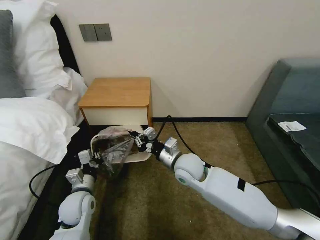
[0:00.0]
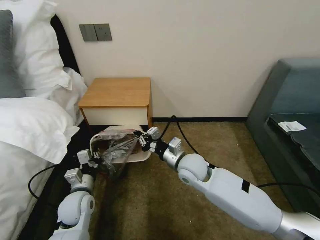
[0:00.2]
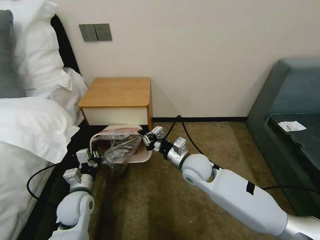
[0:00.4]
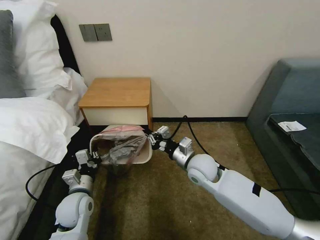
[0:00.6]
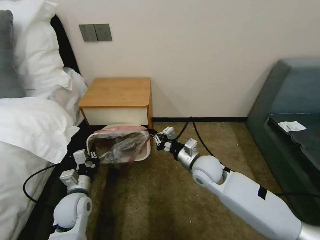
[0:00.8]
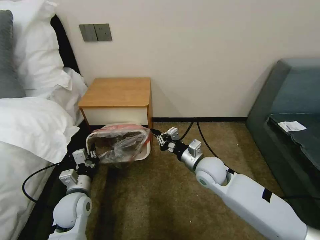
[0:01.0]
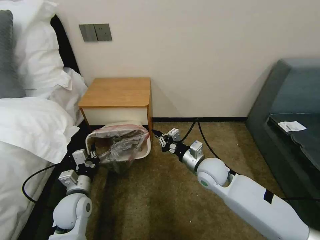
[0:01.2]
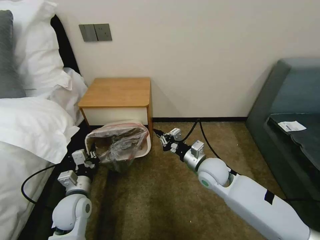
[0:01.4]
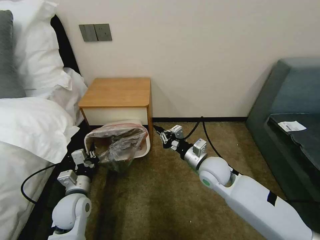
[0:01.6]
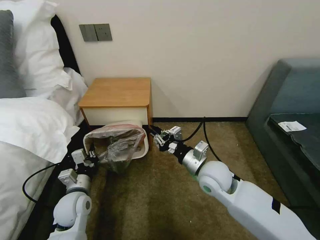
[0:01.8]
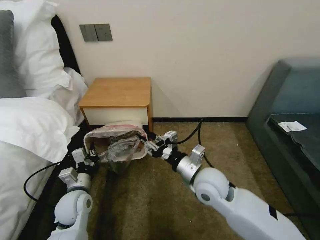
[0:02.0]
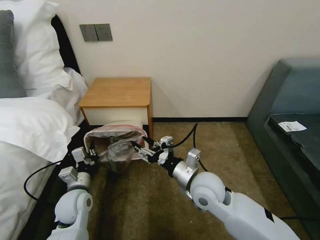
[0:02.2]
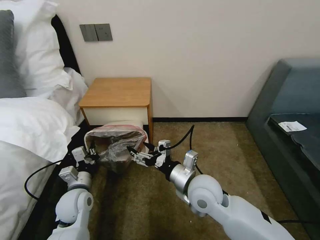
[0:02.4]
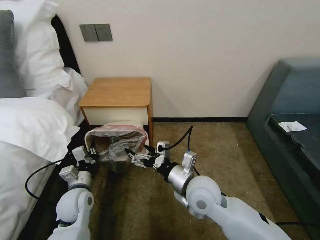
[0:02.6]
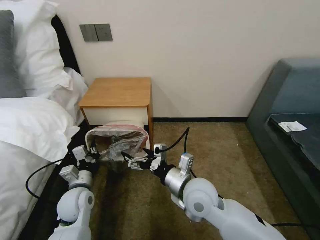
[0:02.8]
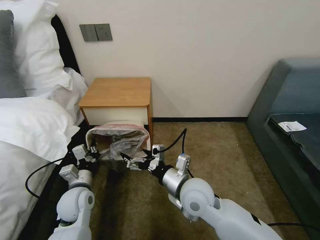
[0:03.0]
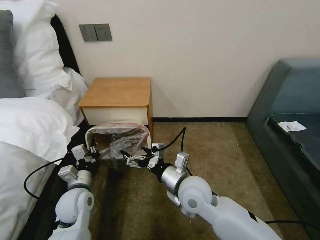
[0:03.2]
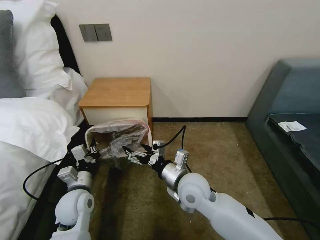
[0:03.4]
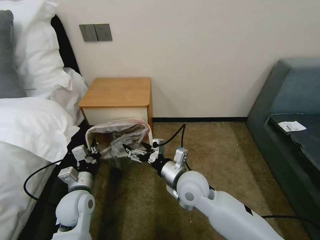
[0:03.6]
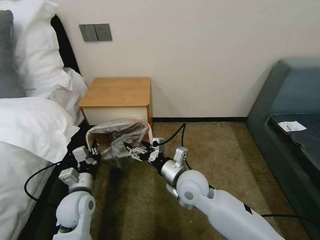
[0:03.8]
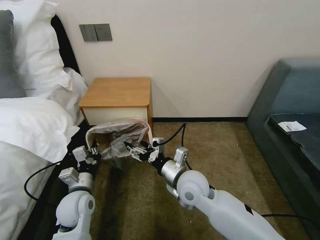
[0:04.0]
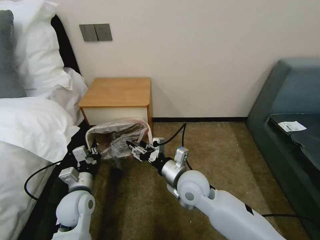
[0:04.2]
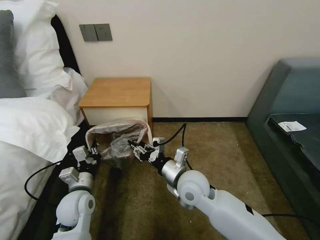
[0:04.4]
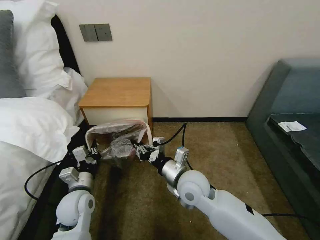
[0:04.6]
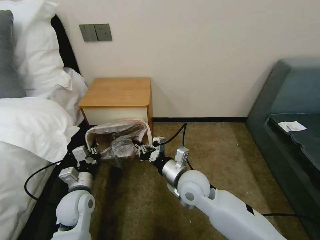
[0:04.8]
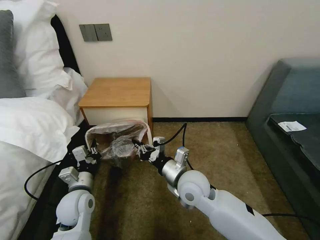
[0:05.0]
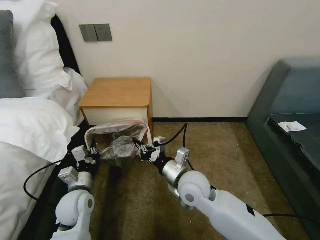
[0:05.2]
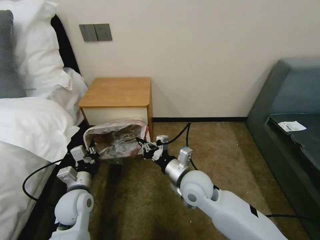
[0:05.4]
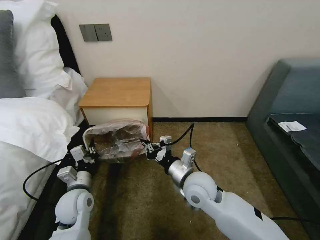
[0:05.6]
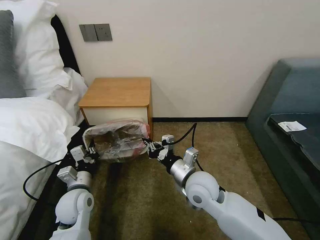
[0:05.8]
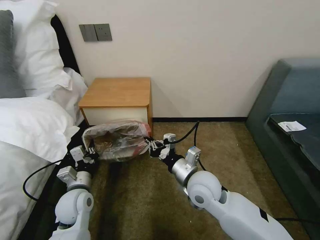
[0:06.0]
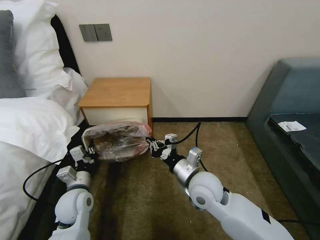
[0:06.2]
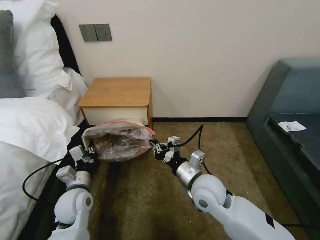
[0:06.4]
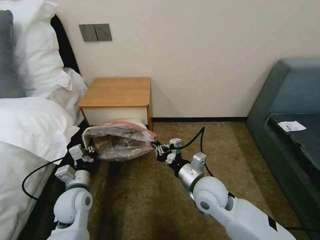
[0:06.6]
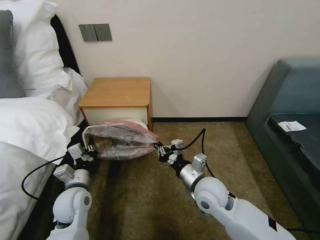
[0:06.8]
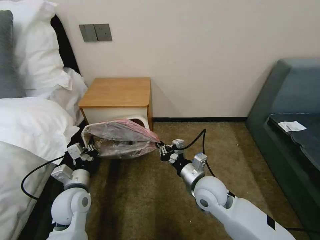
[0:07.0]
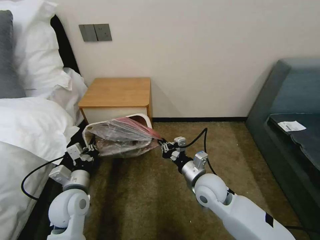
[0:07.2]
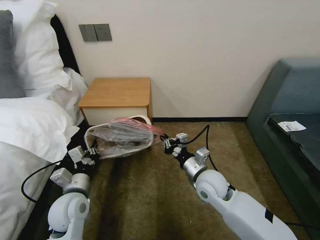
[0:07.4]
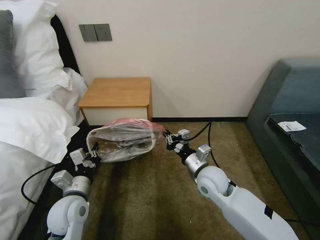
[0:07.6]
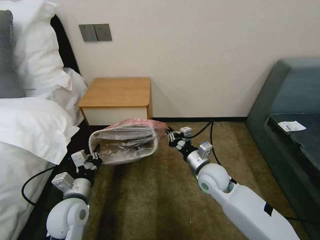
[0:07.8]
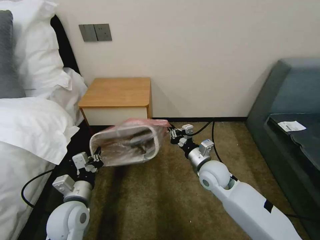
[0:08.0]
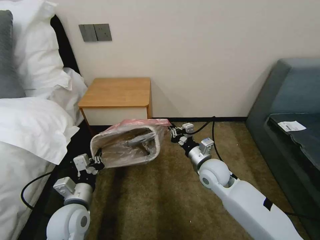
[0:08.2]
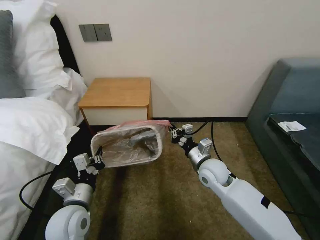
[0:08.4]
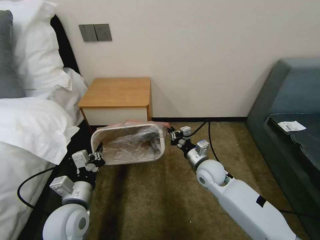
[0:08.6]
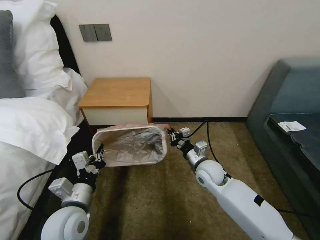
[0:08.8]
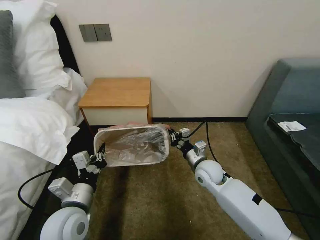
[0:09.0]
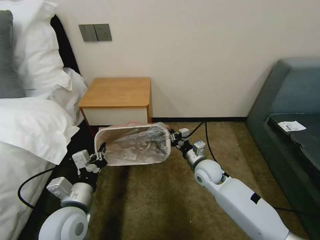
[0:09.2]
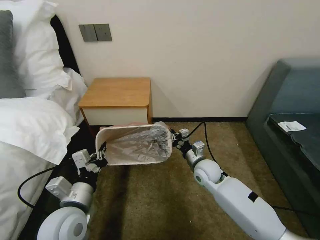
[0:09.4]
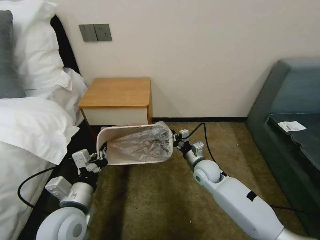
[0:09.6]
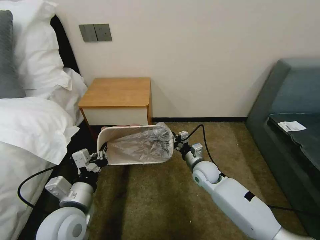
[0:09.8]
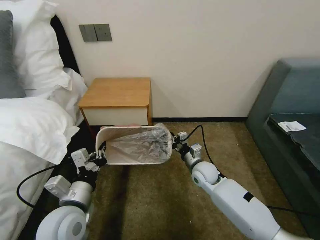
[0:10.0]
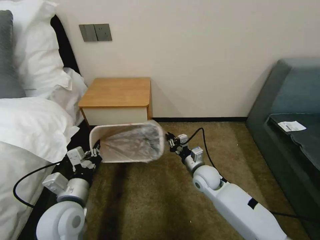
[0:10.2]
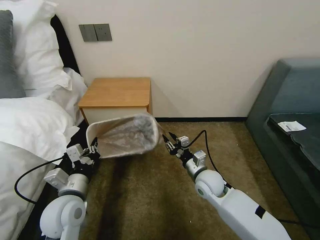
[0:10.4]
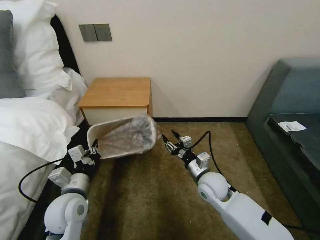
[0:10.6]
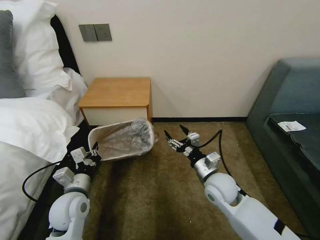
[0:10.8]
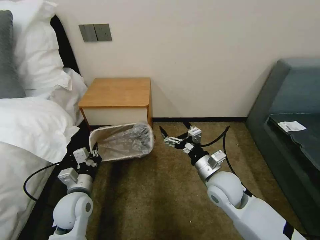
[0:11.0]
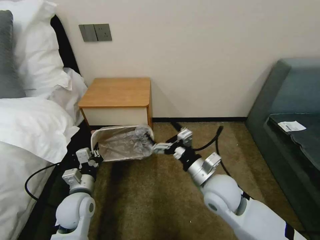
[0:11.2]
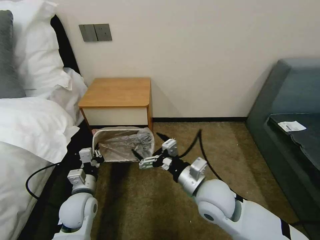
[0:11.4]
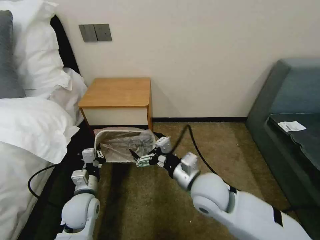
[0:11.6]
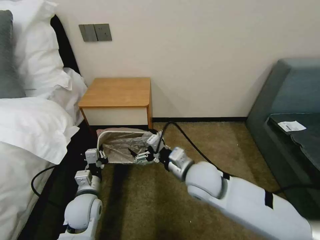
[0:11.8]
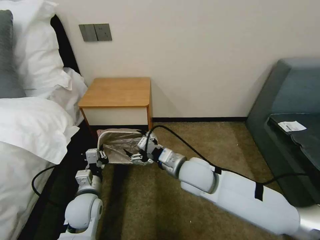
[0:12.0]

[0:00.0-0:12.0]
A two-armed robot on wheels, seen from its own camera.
Task of the whole recording: Pick up the garbage bag from the table and place it over the trash can.
0:00.0 to 0:01.6: The right gripper travels to the right by approximately 10 cm.
0:01.6 to 0:03.0: The right gripper is displaced backward and to the left by approximately 10 cm, and opens up.
0:03.0 to 0:04.4: The right gripper closes.
0:04.4 to 0:06.0: There are only small adjustments of the grippers.
0:06.0 to 0:07.6: The right gripper shifts by roughly 5 cm.
0:07.6 to 0:09.0: The right gripper ends up roughly 5 cm from where it was. Meanwhile the left gripper moves roughly 5 cm.
0:09.0 to 0:10.4: The grippers stay close to where they were, moving slightly.
0:10.4 to 0:12.0: The left gripper shifts about 10 cm downward, while the right gripper heads upward and to the left, covering approximately 15 cm, and opens up.

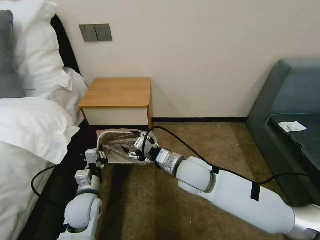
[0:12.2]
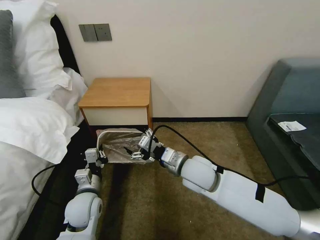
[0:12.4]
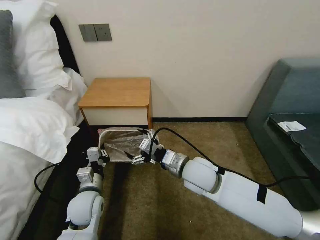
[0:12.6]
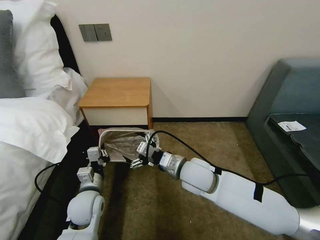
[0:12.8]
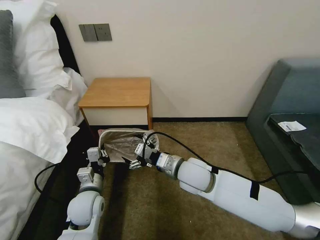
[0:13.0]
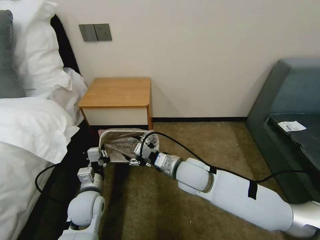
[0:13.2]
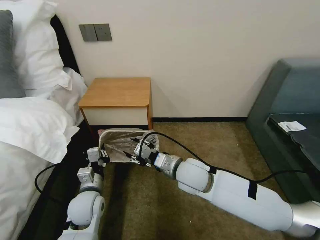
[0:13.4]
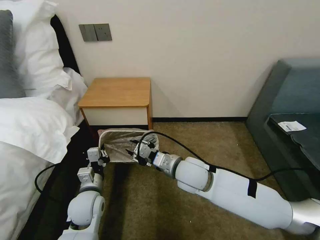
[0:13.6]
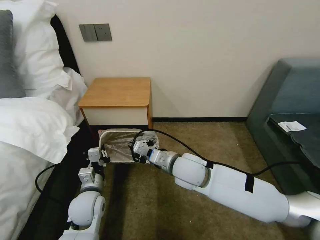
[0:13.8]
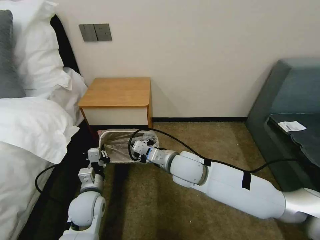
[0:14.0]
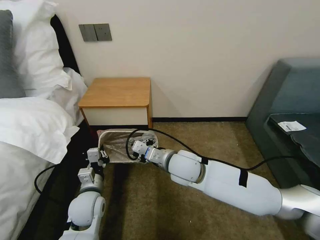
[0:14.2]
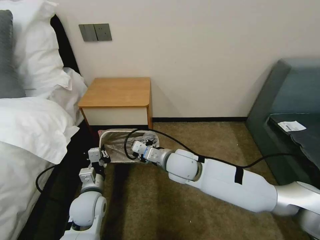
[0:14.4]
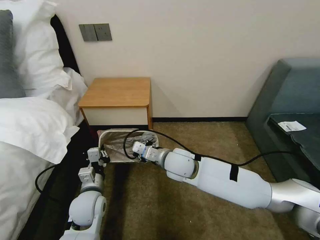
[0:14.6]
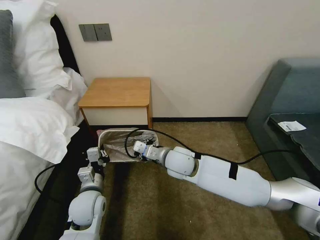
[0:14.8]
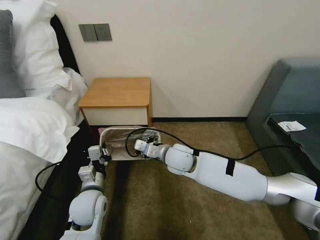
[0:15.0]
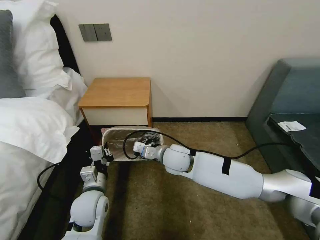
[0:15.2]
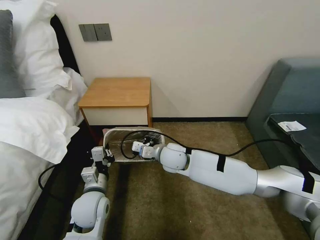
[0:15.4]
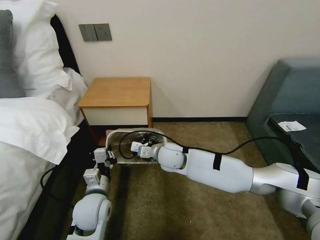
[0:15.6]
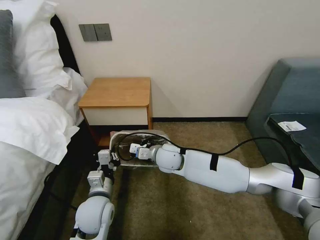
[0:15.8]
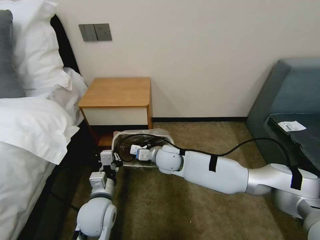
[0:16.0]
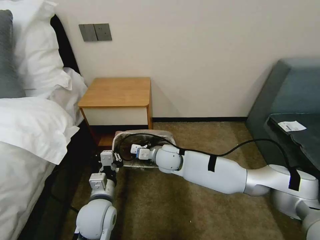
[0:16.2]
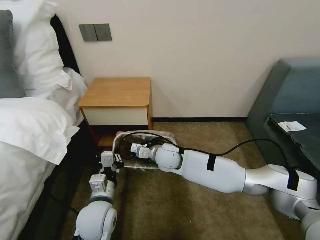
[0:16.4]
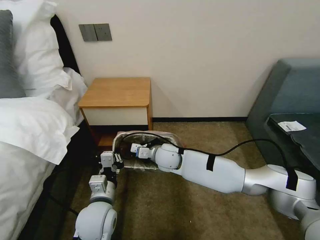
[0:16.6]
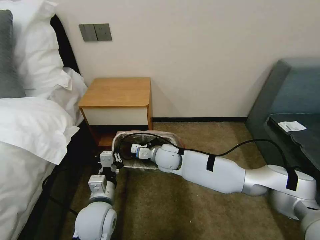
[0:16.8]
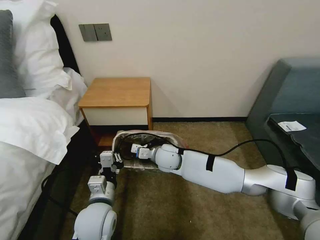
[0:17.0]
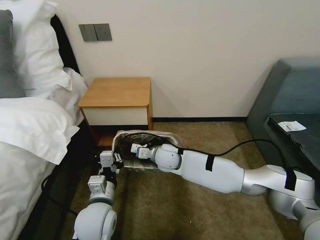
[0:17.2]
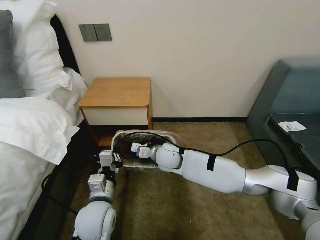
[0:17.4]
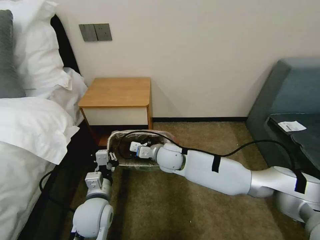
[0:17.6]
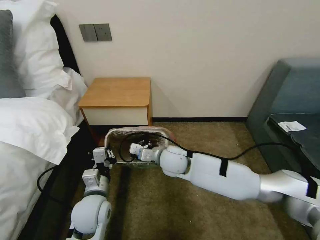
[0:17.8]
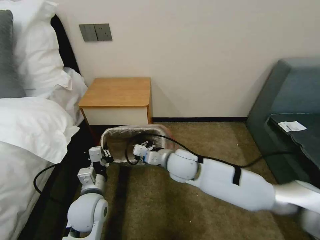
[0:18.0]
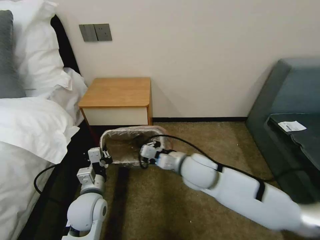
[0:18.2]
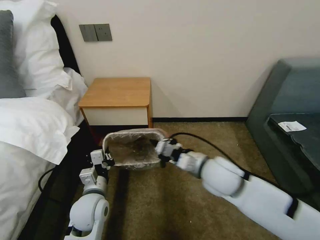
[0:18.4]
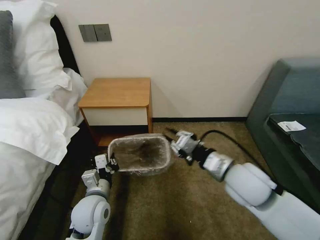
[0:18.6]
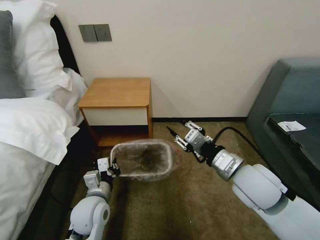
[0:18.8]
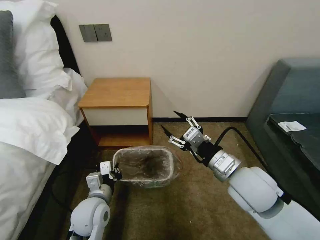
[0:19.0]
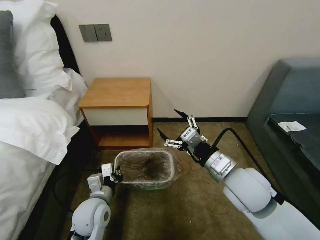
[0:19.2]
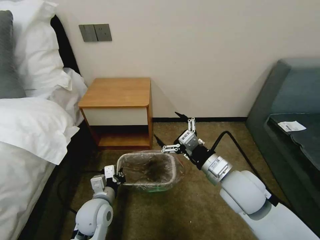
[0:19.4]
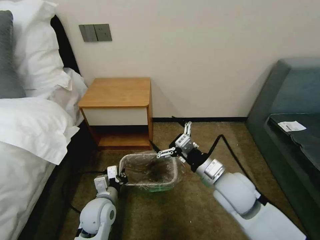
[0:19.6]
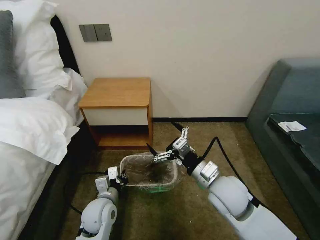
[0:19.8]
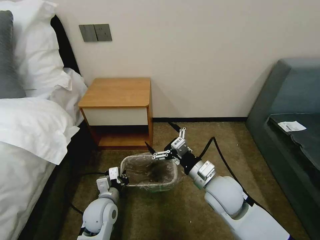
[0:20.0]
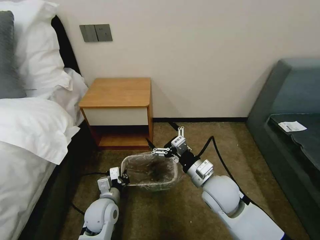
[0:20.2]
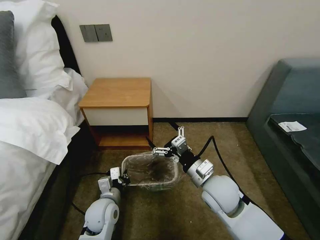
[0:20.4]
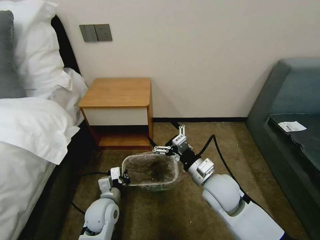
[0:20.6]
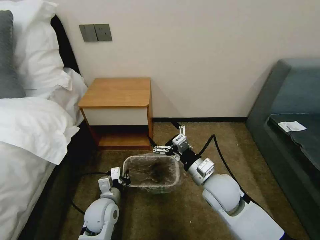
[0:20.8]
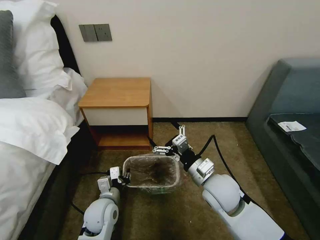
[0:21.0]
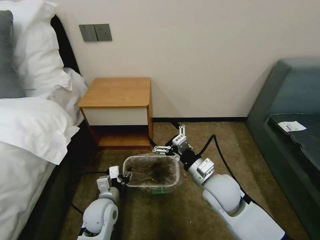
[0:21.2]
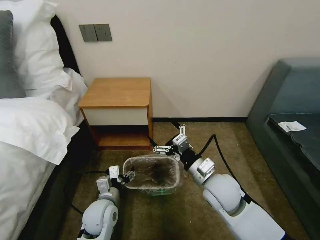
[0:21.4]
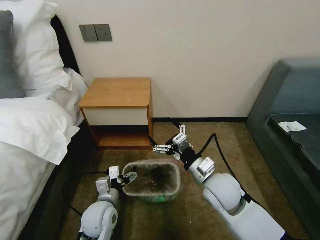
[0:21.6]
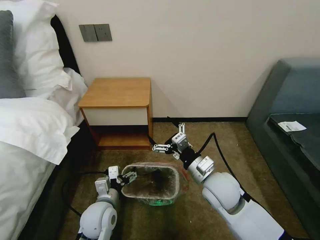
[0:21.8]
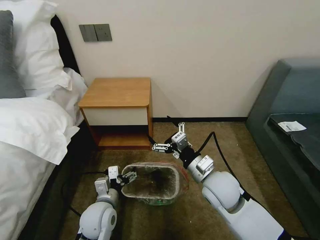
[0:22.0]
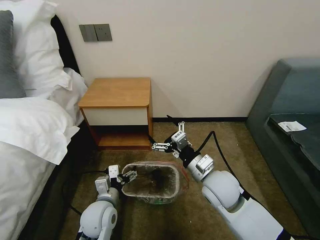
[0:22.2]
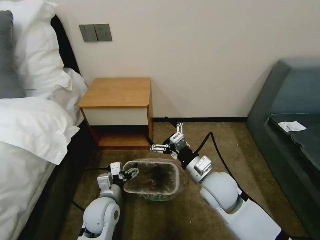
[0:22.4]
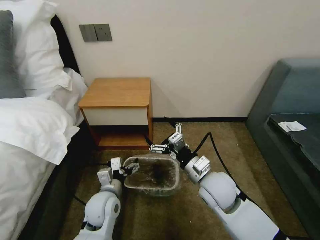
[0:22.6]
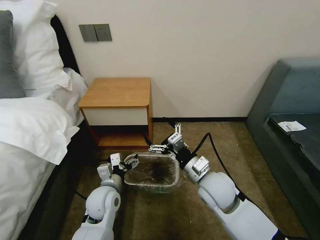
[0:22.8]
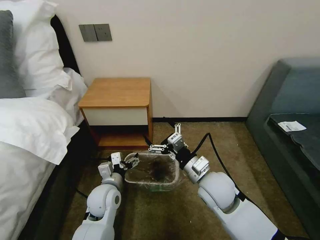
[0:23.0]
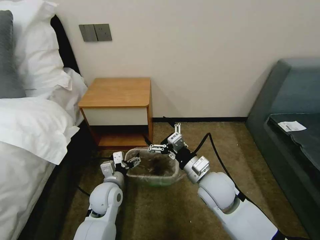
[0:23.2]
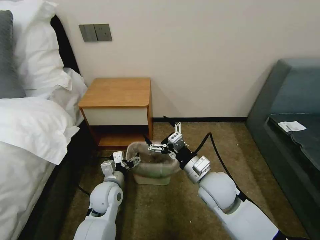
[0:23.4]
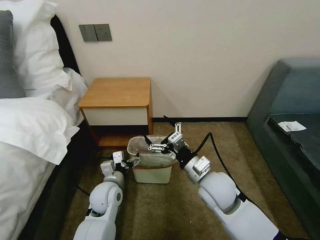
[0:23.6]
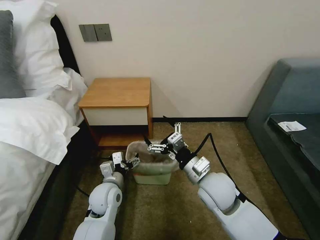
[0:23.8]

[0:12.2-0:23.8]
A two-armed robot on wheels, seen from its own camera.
Task of the whole recording: Pick up the garbage bag from the table and place it over the trash can.
0:12.2 to 0:13.6: The grippers make only small movements.
0:13.6 to 0:15.0: The right gripper is displaced forward by some 5 cm, and closes.
0:15.0 to 0:16.6: The left gripper ends up about 5 cm from where it was, while the right gripper changes place by about 5 cm.
0:16.6 to 0:18.0: The right gripper moves backward, some 5 cm.
0:18.0 to 0:19.4: The right gripper shifts about 20 cm to the right, backward and upward, and opens its fingers.
0:19.4 to 0:21.0: The left gripper opens up. The right gripper goes about 5 cm downward.
0:21.0 to 0:22.4: The left gripper opens up.
0:22.4 to 0:23.8: The grippers make only small movements.
